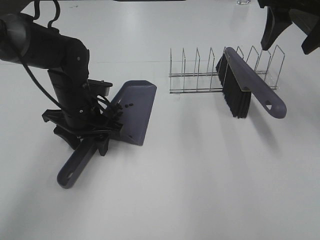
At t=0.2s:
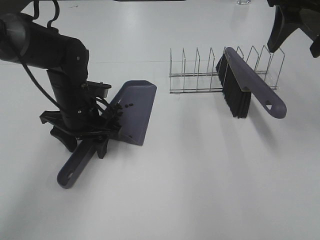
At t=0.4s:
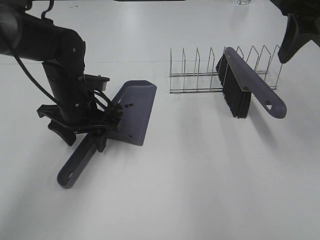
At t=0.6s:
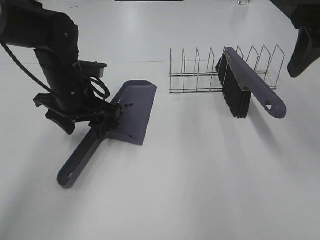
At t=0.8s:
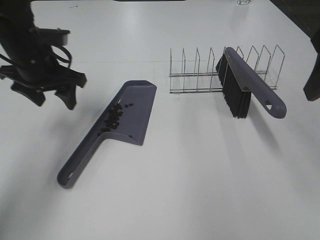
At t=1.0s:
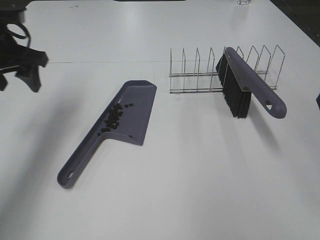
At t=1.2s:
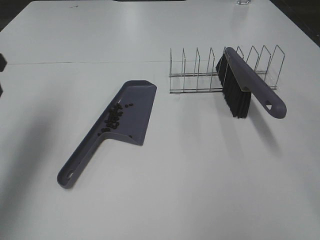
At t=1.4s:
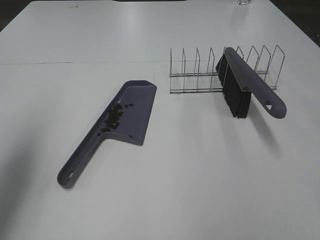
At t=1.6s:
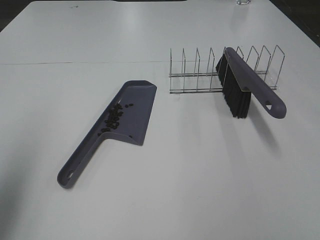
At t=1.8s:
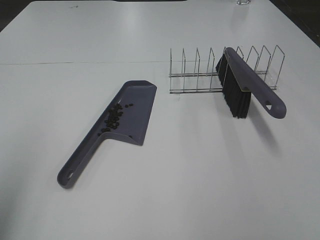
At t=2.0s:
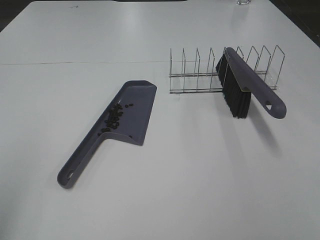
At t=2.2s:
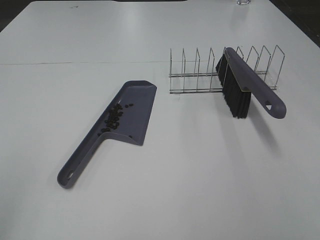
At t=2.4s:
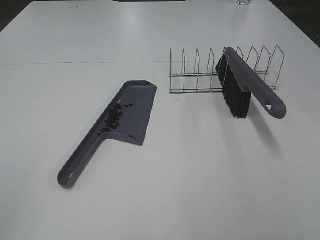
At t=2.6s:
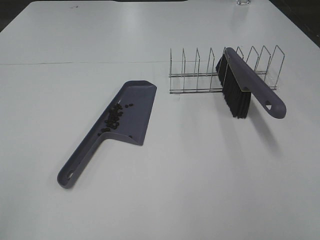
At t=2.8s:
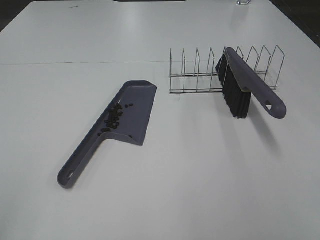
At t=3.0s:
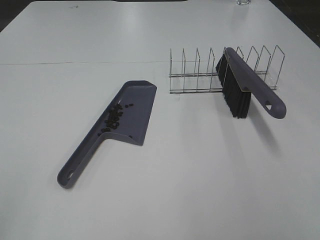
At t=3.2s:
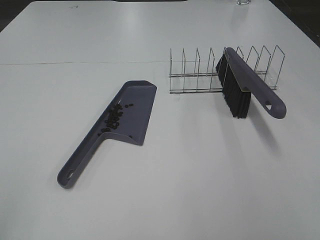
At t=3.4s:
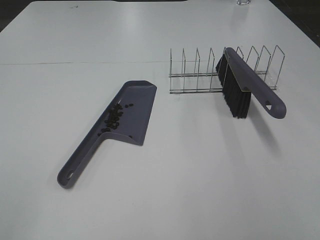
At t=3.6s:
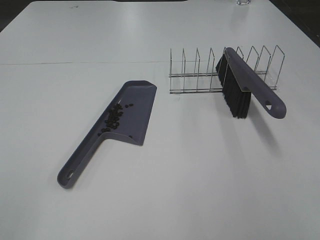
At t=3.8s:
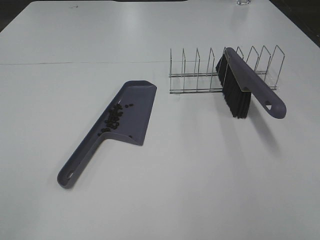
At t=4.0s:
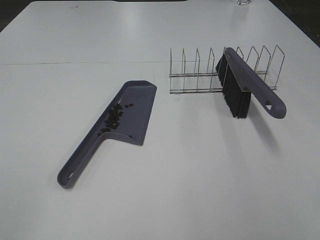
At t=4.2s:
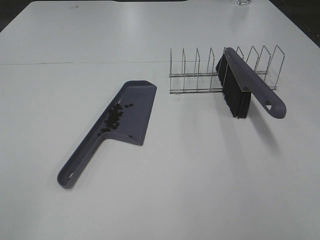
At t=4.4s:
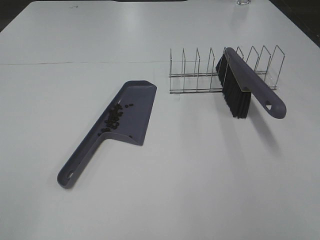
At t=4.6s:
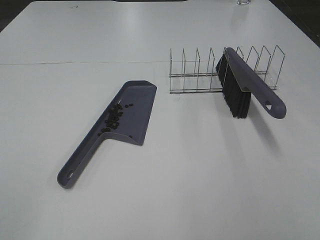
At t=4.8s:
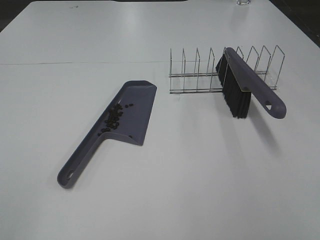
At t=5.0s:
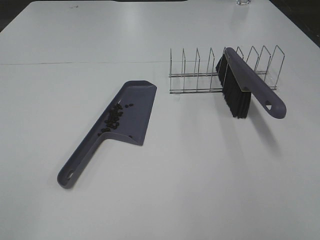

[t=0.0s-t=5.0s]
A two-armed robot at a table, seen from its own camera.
Task of the whole recording: Sweep Coffee Bean.
t=0.0s to t=1.6s: The left gripper is displaced upward, backward and to the left by approximately 35 cm, while the right gripper travels backward by some 30 cm.
t=1.6s to t=3.4s: The left gripper shifts about 15 cm backward, and opens.
t=3.4s to t=5.0s: Neither gripper changes place.
